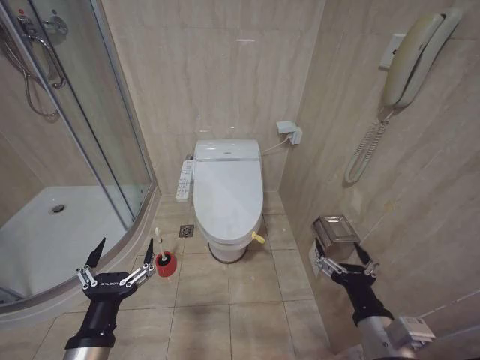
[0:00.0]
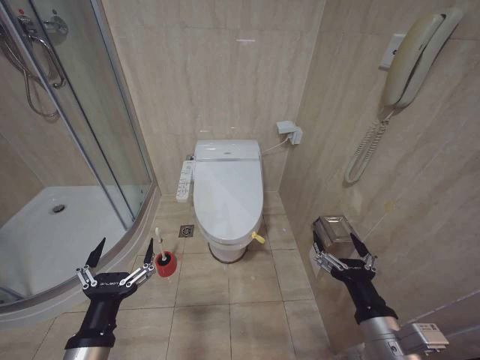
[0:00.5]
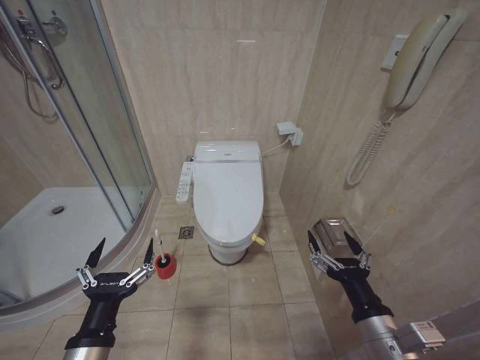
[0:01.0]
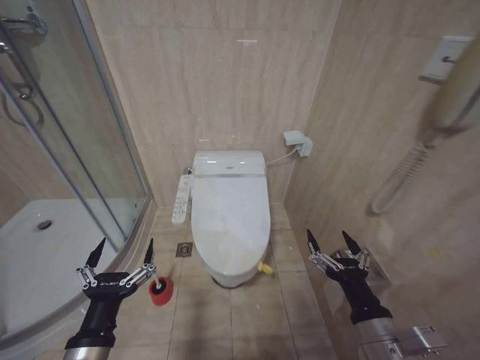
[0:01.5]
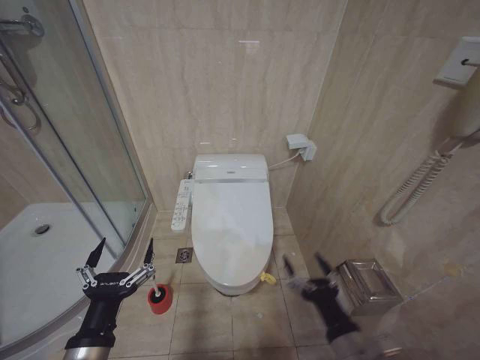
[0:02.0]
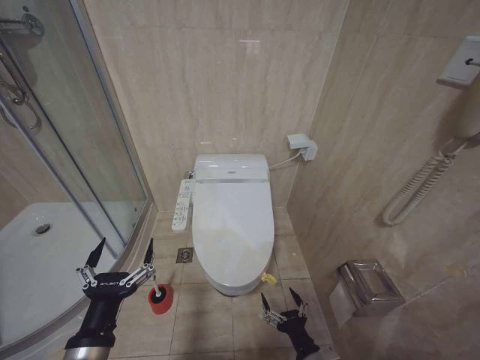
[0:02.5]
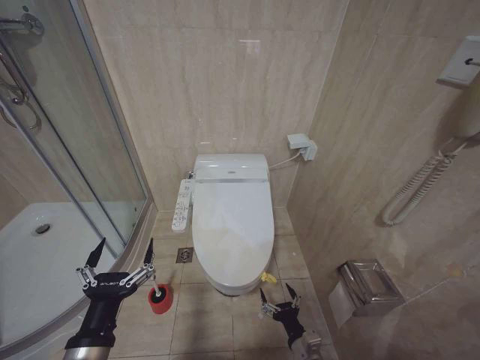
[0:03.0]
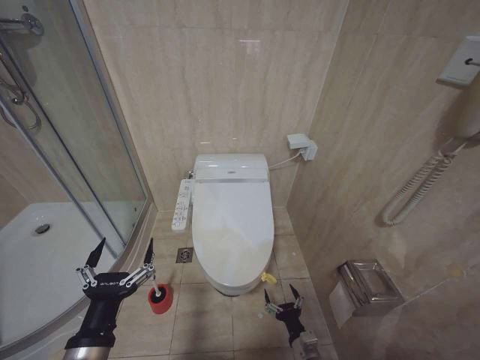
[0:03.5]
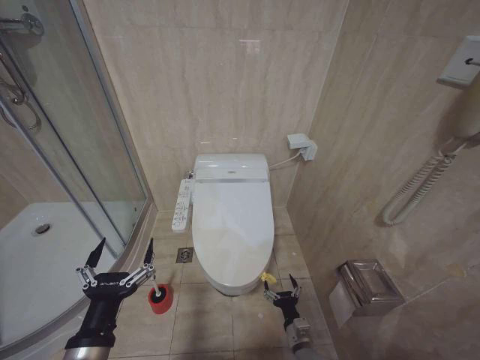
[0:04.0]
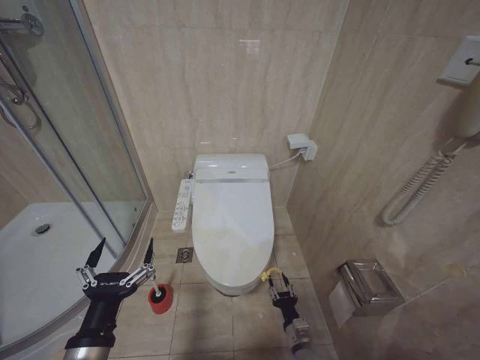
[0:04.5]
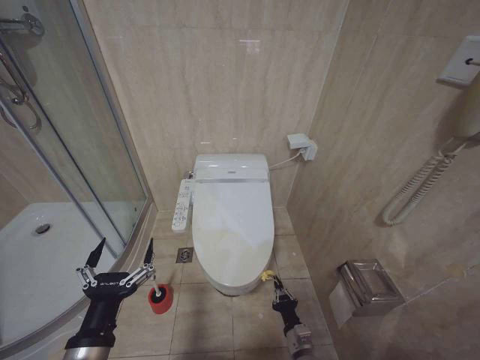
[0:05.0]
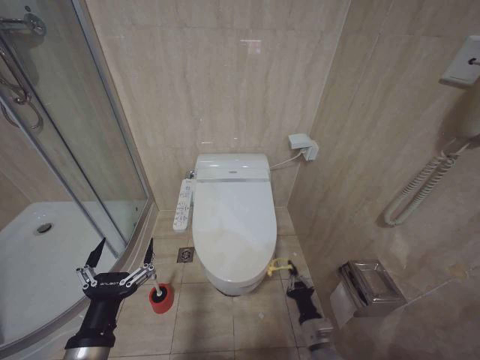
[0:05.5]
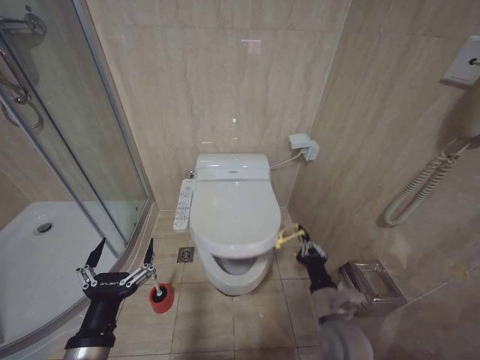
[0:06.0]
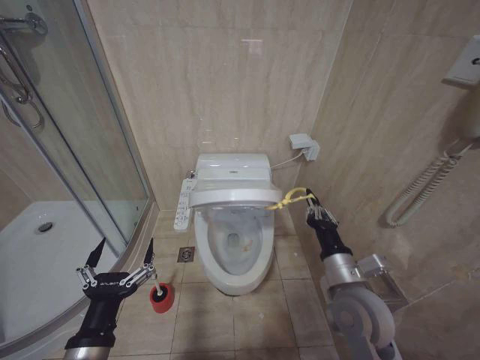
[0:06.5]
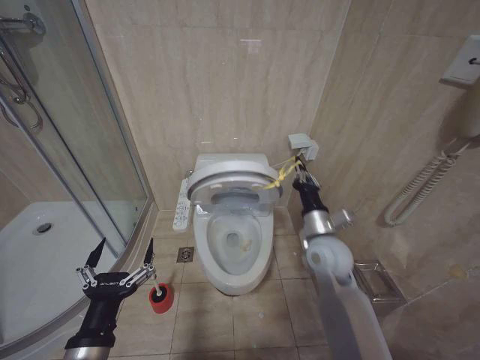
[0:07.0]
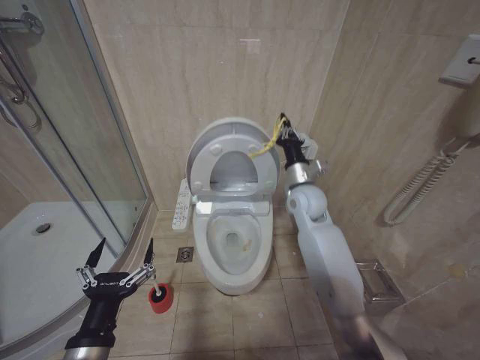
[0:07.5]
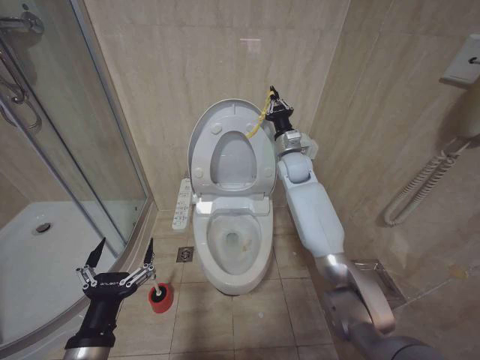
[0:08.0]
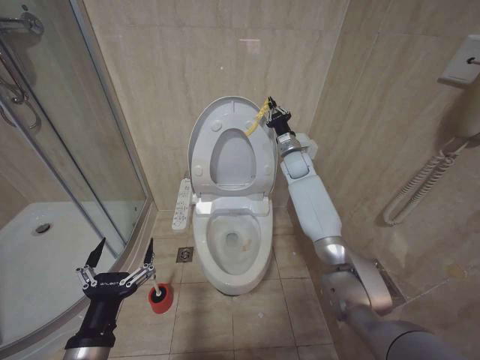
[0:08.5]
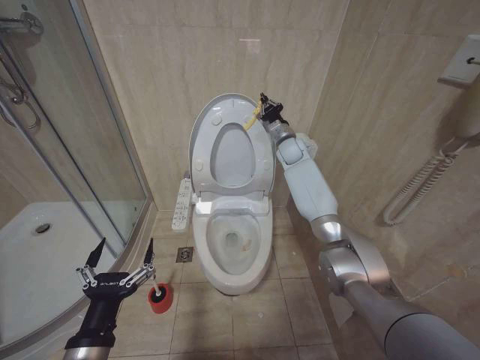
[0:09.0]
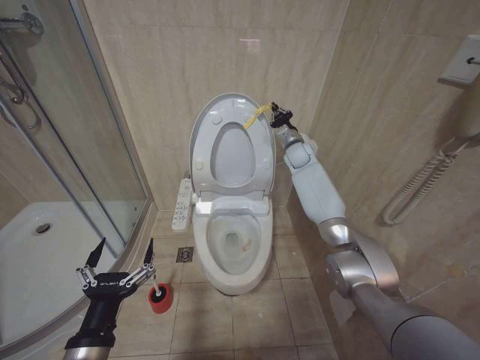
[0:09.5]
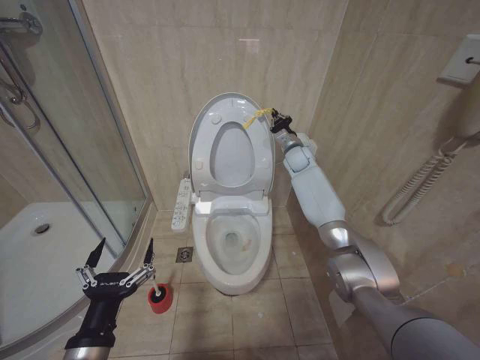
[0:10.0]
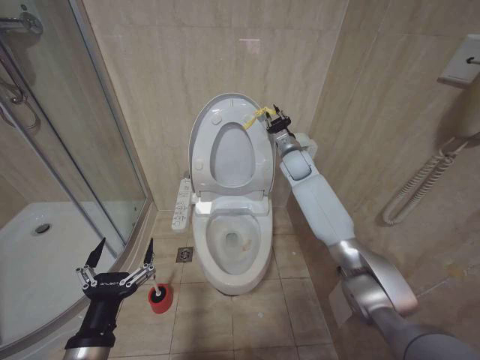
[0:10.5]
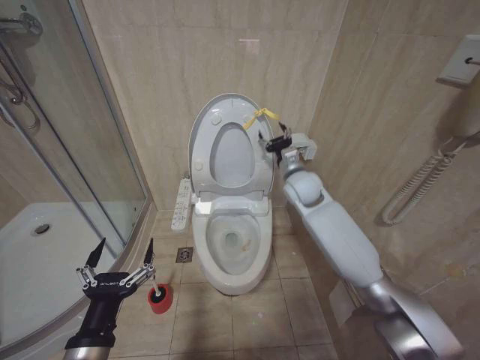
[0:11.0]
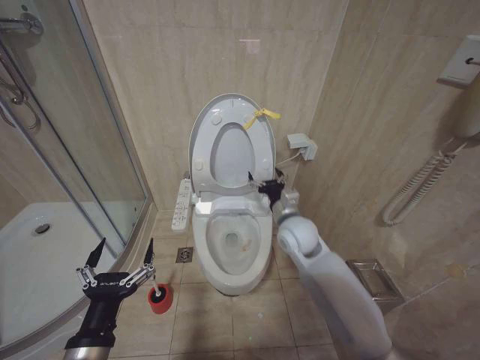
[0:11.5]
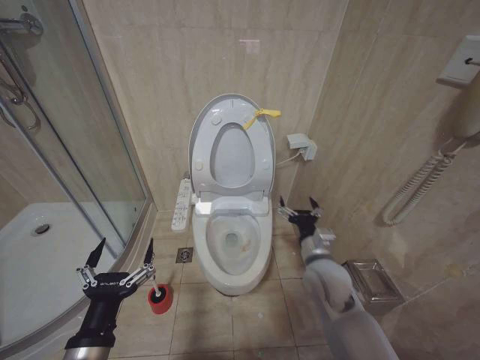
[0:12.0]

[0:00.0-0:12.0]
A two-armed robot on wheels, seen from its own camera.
Task of the whole recording: Open the toilet lid, clean the toilet bowl with a toilet brush, close the toilet lid, and flush.
0:02.0 to 0:04.0: The right gripper shifts approximately 25 cm downward.
0:04.0 to 0:06.0: The right gripper travels upward by some 20 cm, and closes up.
0:06.0 to 0:08.0: The right gripper goes approximately 40 cm forward and upward.
0:08.0 to 0:10.0: The right gripper is displaced forward by approximately 10 cm.
0:10.0 to 0:12.0: The right gripper heads backward and downward, covering approximately 35 cm, and opens its fingers.

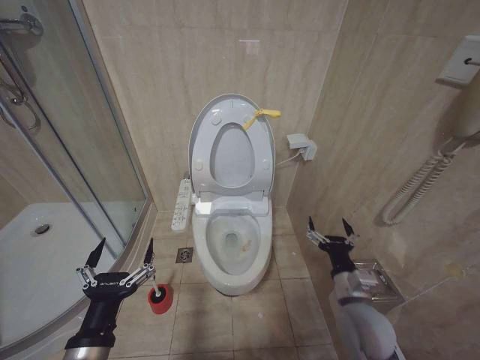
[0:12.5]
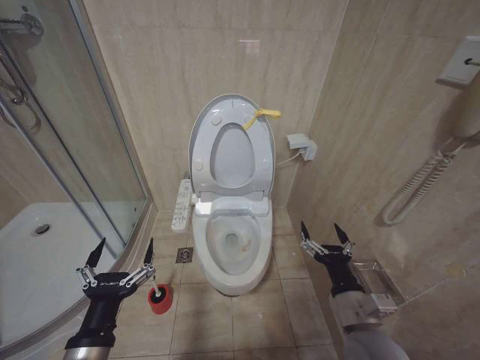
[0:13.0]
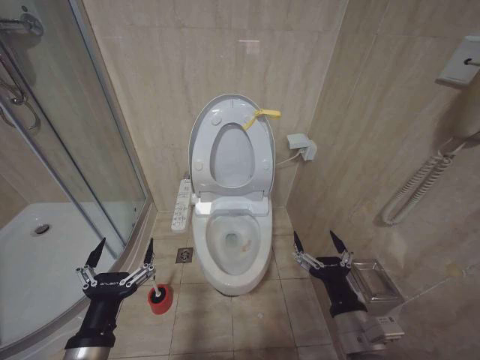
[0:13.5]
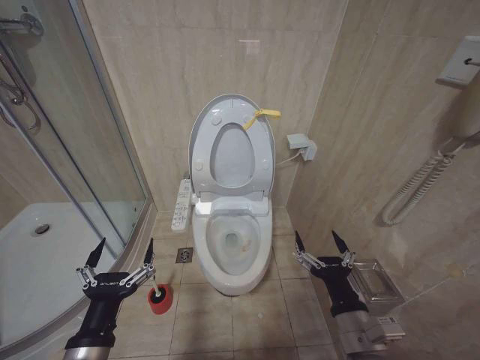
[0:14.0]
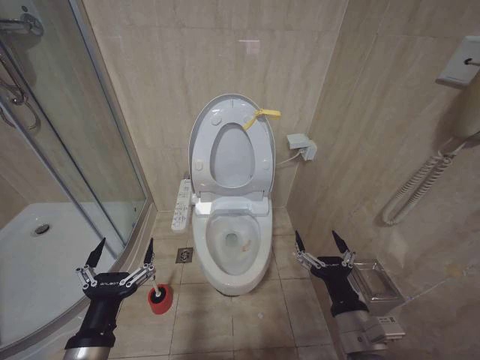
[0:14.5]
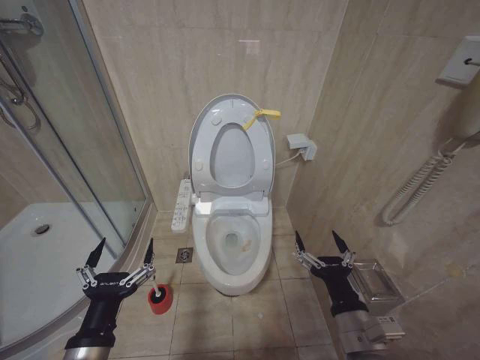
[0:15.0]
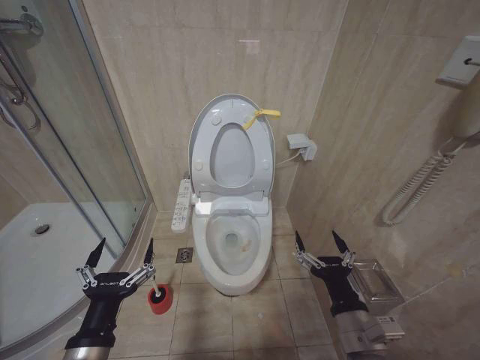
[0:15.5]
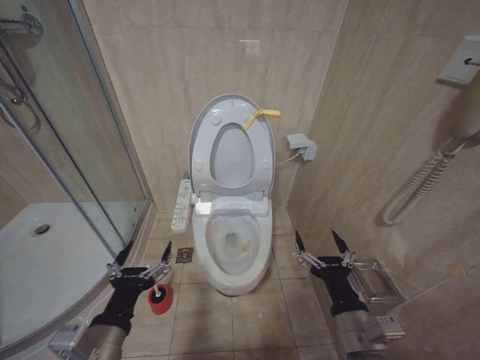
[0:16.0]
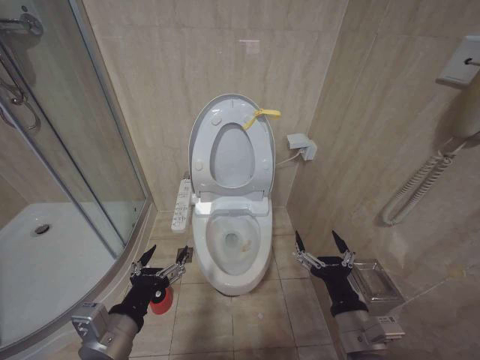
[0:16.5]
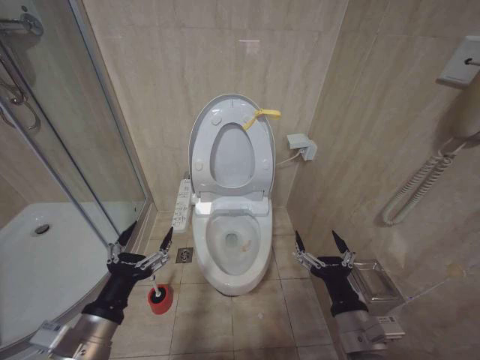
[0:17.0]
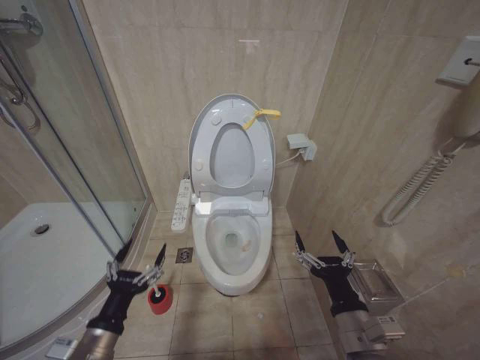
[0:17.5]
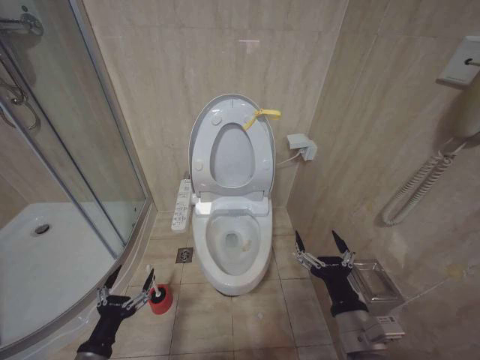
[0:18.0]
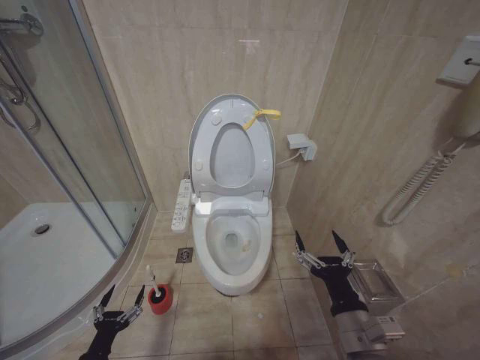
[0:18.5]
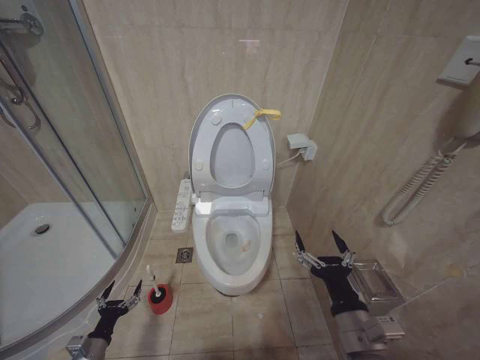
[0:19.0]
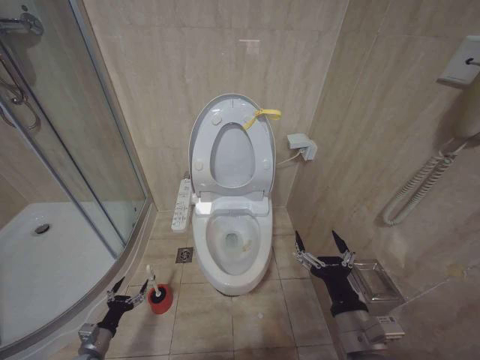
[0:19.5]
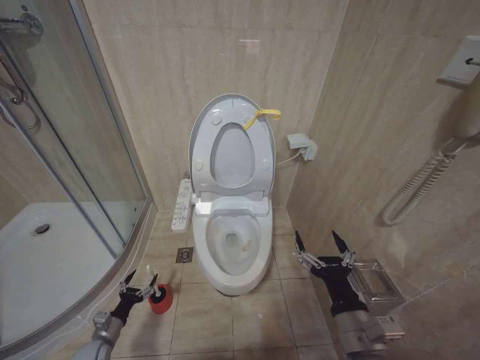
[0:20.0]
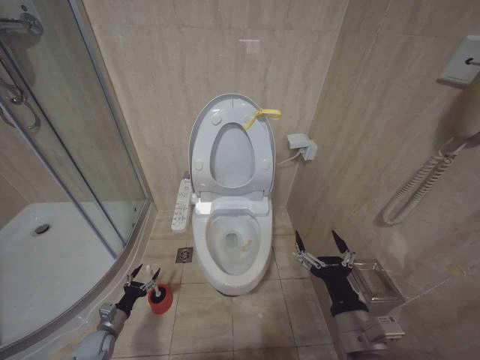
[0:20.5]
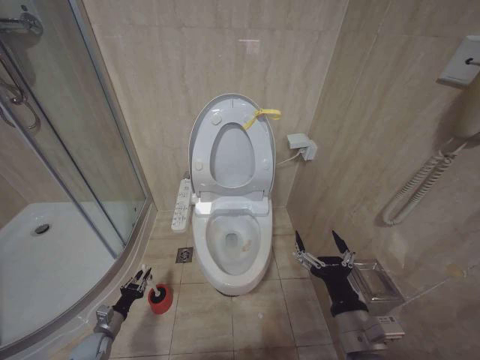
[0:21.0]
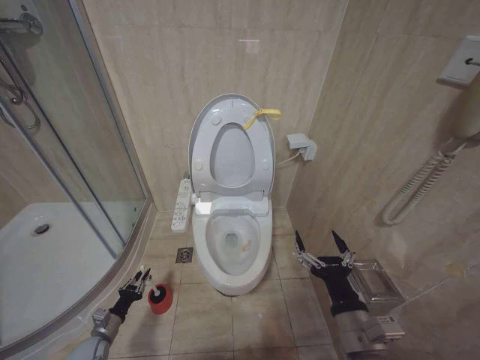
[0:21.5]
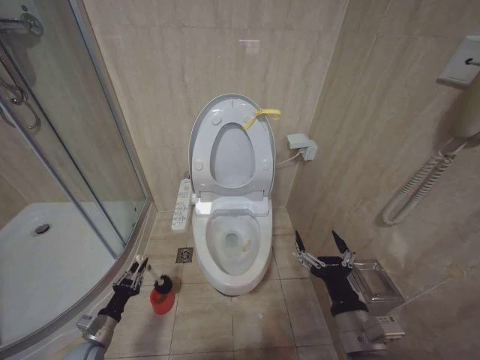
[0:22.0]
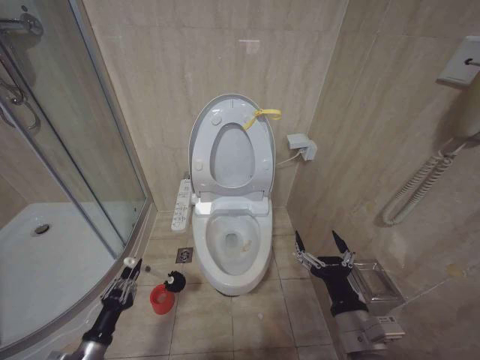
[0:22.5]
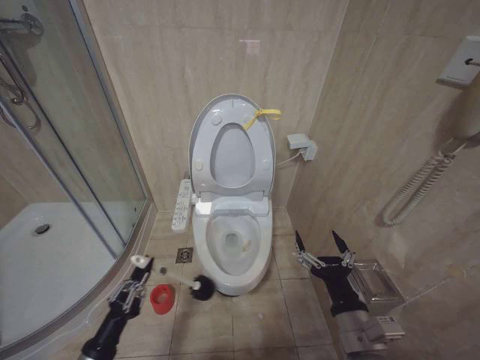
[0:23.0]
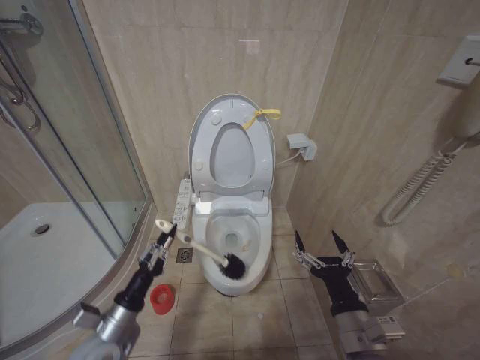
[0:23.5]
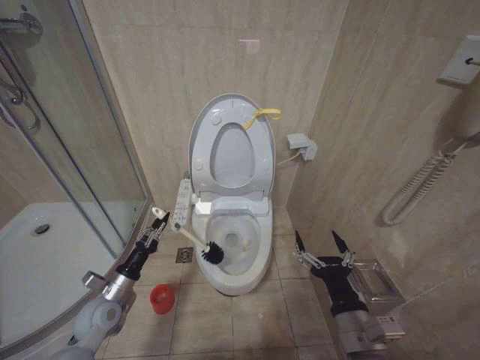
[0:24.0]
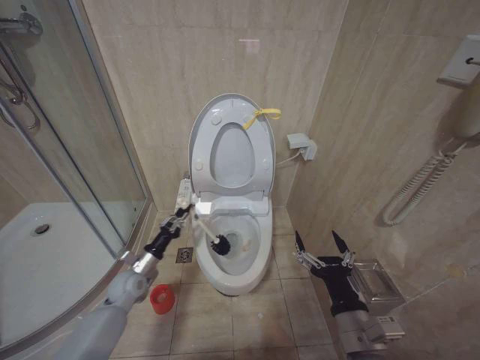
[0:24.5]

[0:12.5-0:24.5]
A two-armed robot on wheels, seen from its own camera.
Task of the whole recording: Open the toilet lid, clean the toilet bowl with a toilet brush, close the toilet lid, and flush.
0:12.5 to 0:14.5: The right gripper shifts about 10 cm backward.
0:16.5 to 0:18.5: The left gripper travels downward and to the left by some 25 cm.
0:18.5 to 0:20.5: The left gripper travels forward and downward by about 20 cm.
0:20.5 to 0:22.5: The left gripper is displaced upward, backward and to the right by roughly 15 cm, and closes up.
0:22.5 to 0:24.5: The left gripper goes some 20 cm forward.

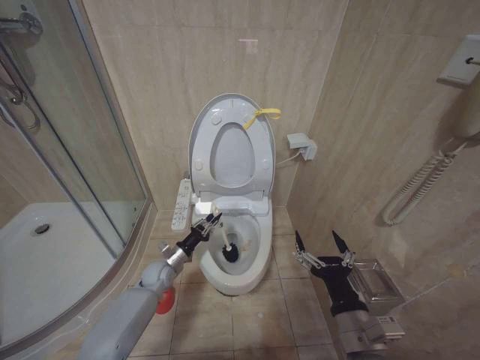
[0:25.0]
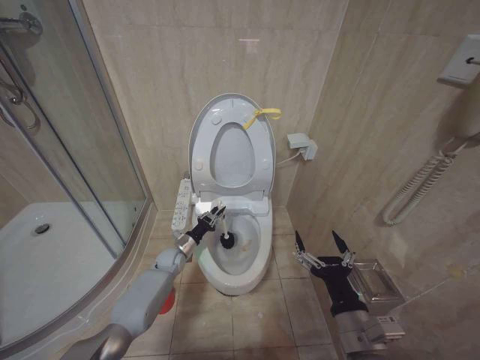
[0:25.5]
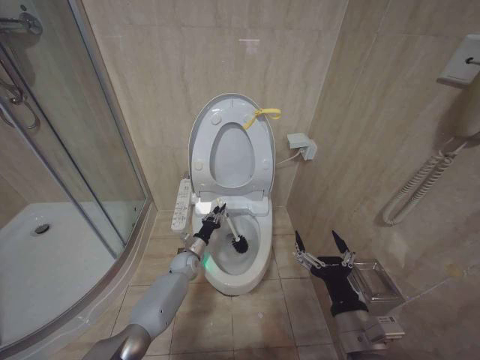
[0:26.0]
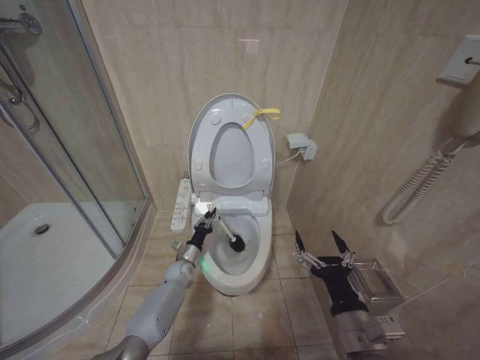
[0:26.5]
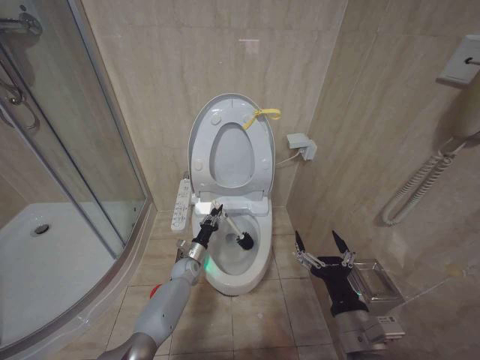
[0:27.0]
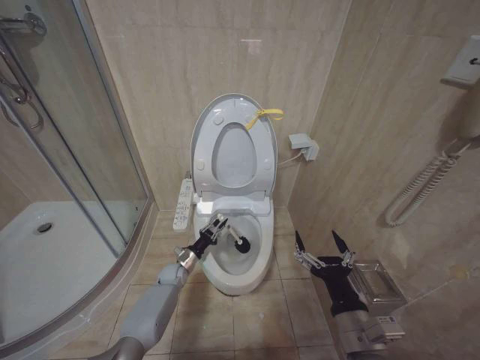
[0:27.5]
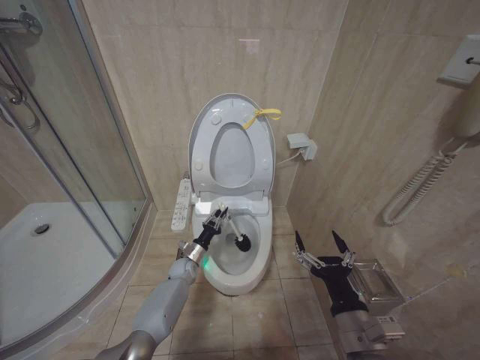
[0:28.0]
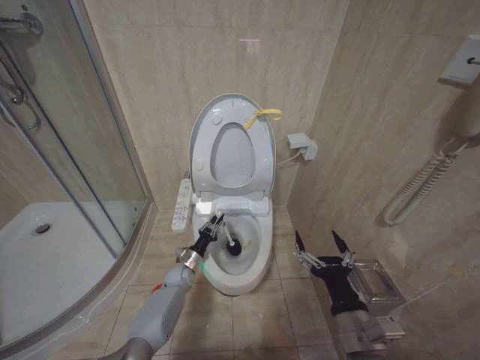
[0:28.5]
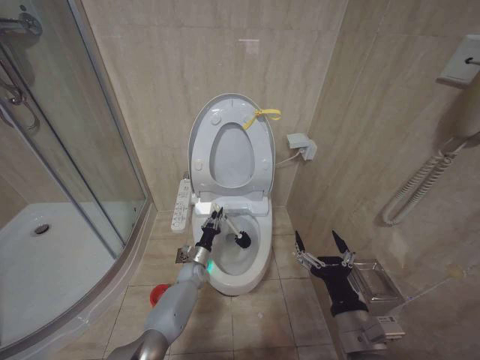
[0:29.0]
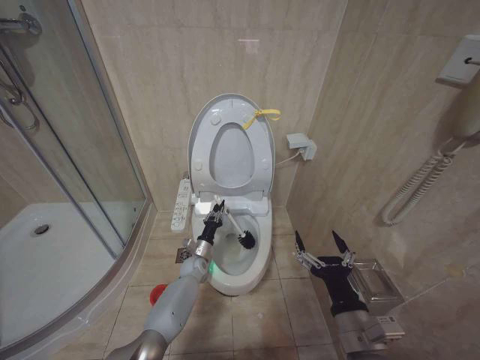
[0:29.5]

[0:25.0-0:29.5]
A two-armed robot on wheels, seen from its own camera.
Task of the whole recording: Open the toilet lid, clean the toilet bowl with a toilet brush, close the toilet lid, and flush.
0:25.0 to 0:27.0: The left gripper heads to the right and downward, covering some 10 cm.